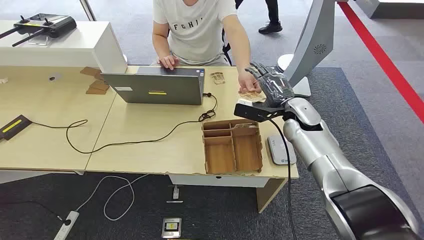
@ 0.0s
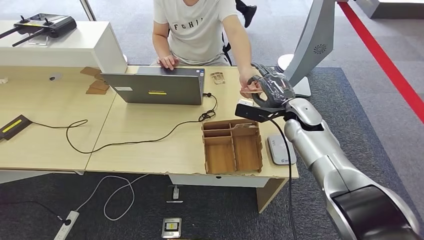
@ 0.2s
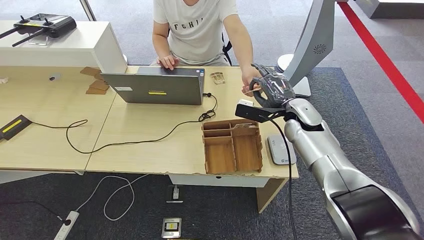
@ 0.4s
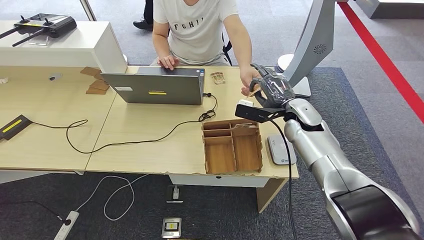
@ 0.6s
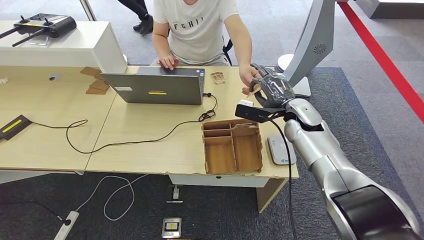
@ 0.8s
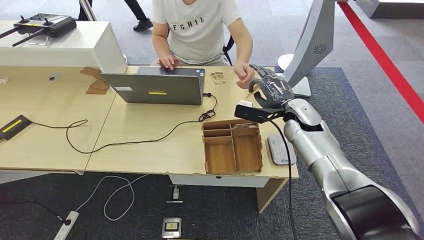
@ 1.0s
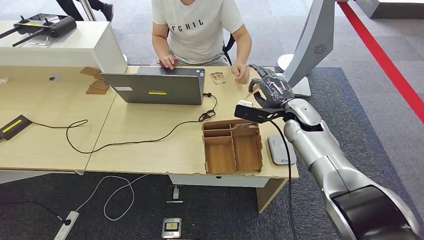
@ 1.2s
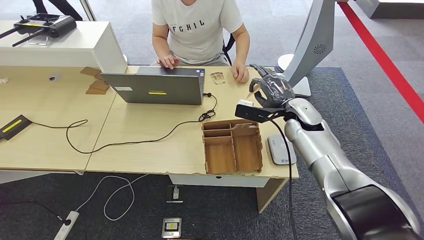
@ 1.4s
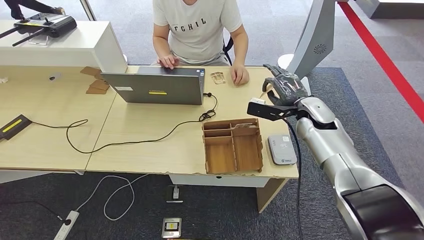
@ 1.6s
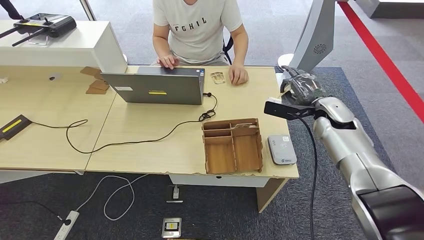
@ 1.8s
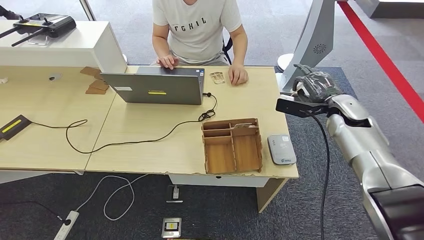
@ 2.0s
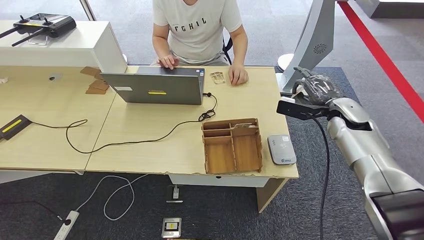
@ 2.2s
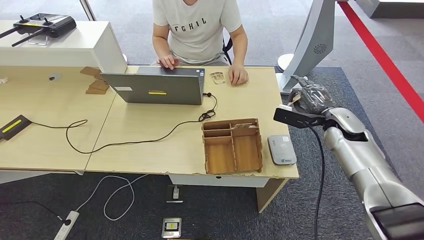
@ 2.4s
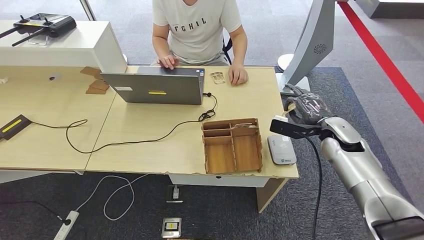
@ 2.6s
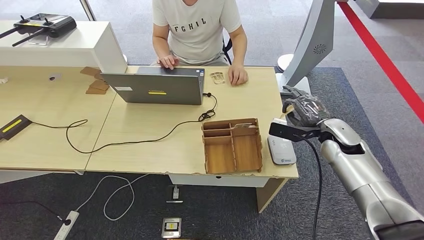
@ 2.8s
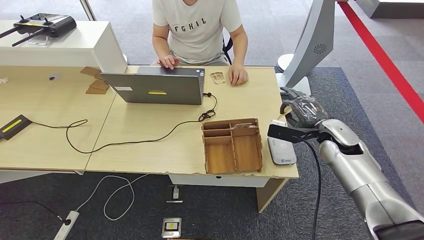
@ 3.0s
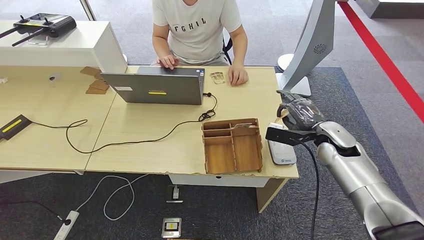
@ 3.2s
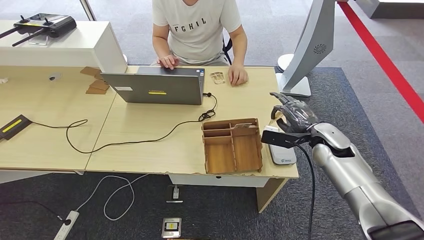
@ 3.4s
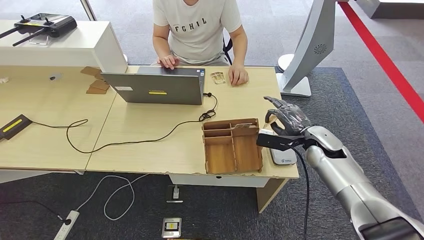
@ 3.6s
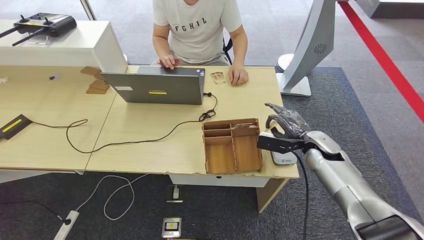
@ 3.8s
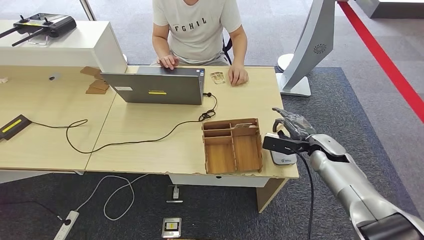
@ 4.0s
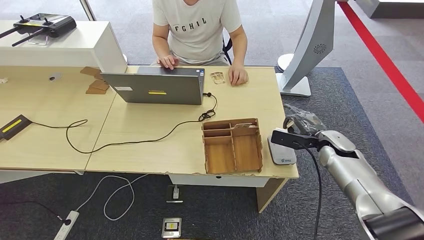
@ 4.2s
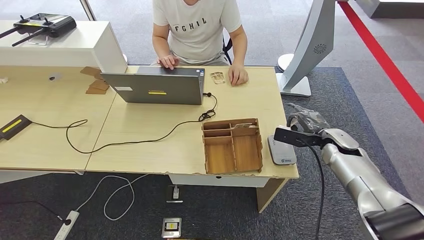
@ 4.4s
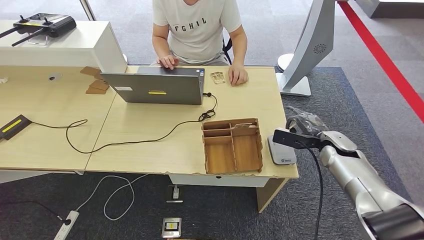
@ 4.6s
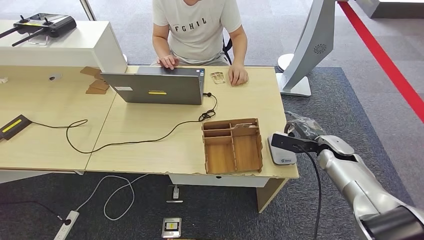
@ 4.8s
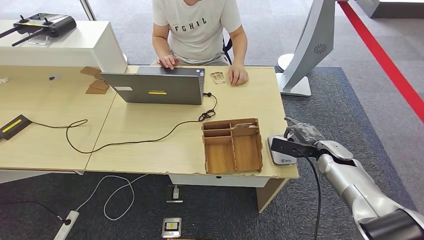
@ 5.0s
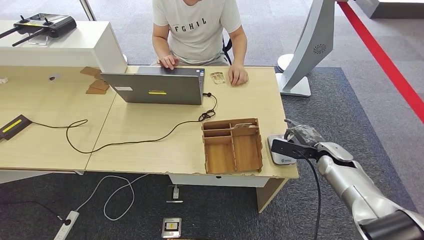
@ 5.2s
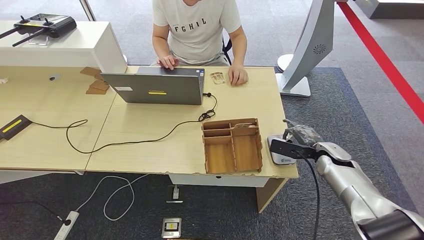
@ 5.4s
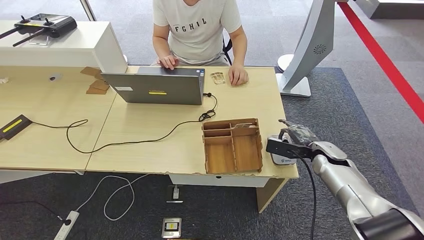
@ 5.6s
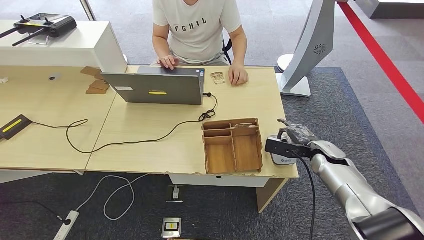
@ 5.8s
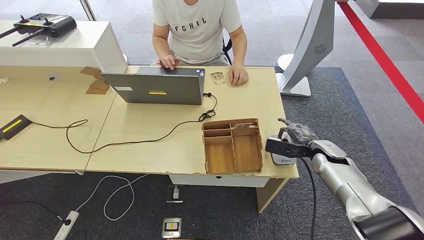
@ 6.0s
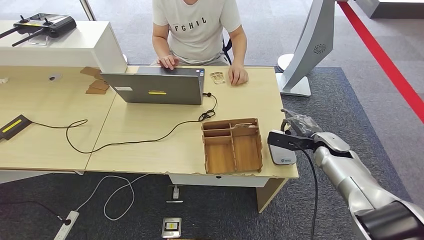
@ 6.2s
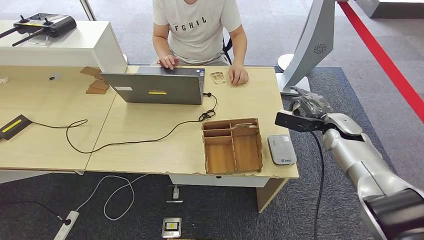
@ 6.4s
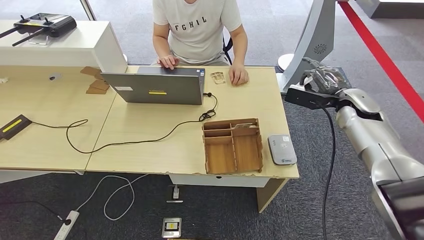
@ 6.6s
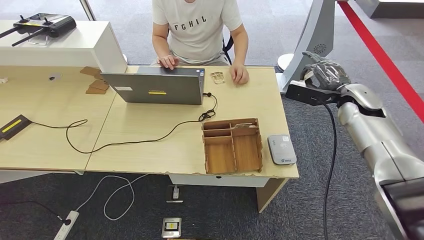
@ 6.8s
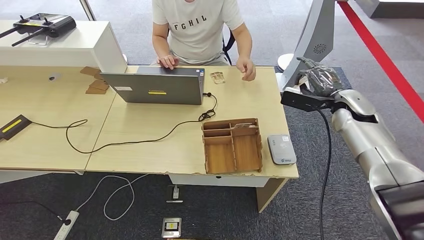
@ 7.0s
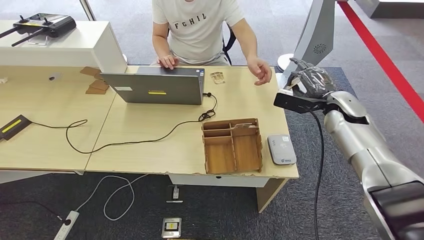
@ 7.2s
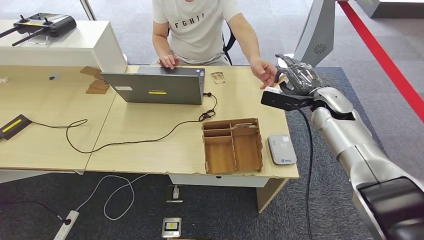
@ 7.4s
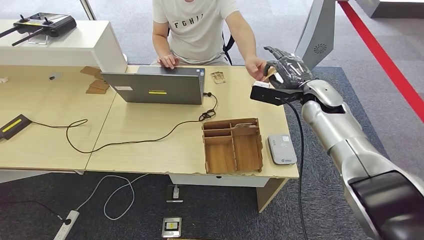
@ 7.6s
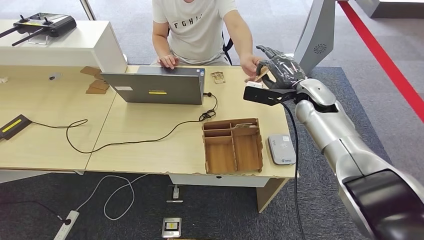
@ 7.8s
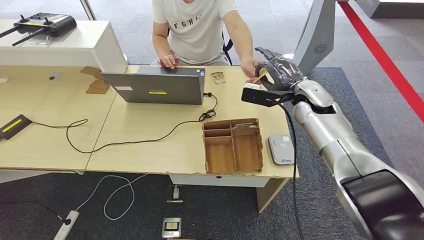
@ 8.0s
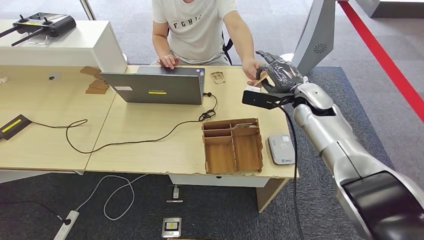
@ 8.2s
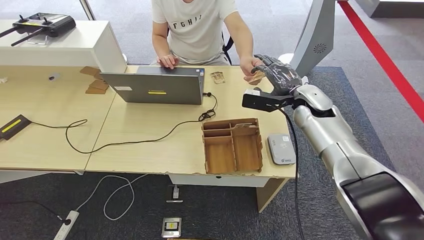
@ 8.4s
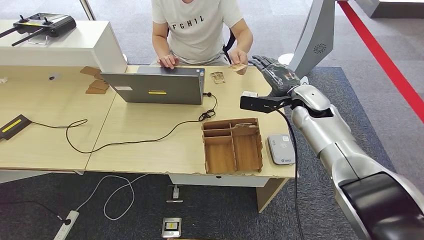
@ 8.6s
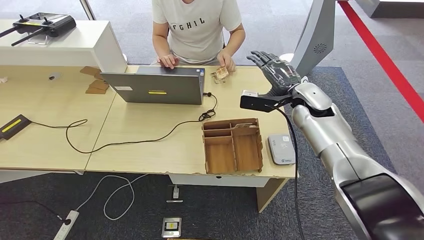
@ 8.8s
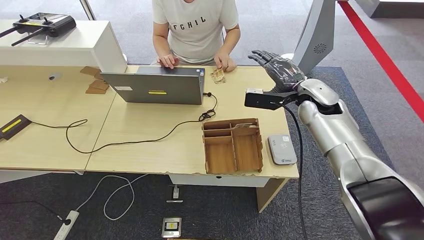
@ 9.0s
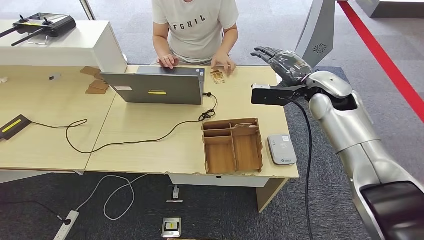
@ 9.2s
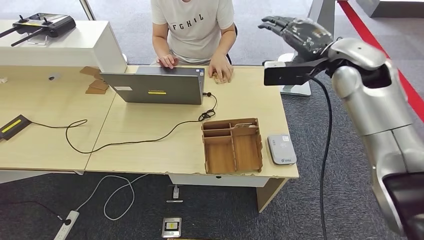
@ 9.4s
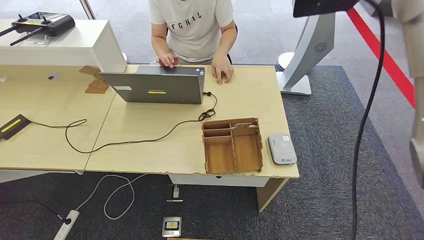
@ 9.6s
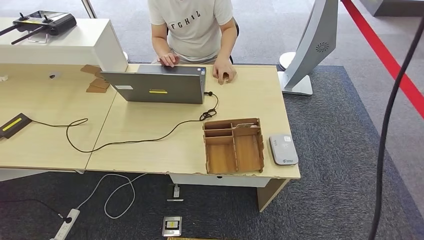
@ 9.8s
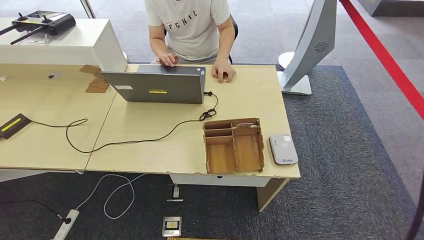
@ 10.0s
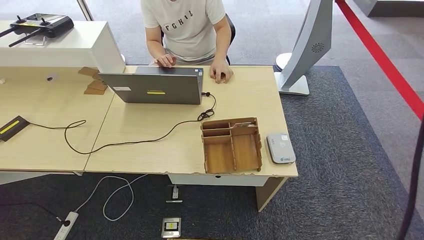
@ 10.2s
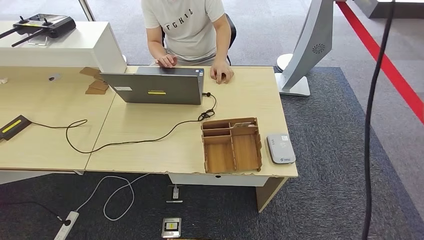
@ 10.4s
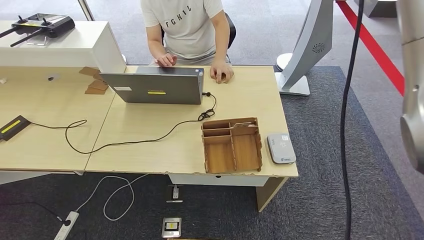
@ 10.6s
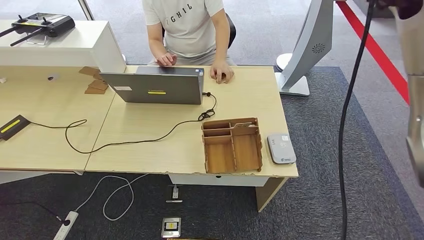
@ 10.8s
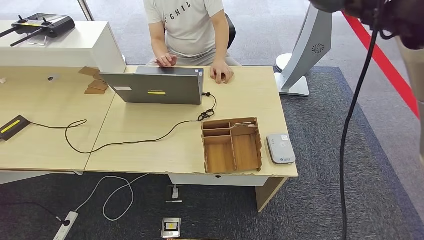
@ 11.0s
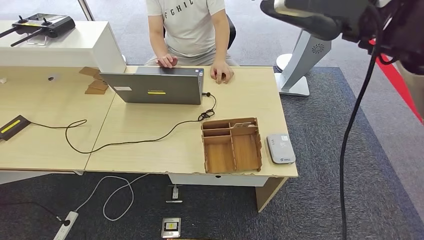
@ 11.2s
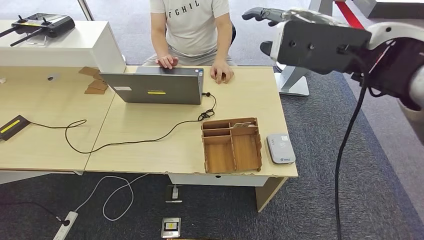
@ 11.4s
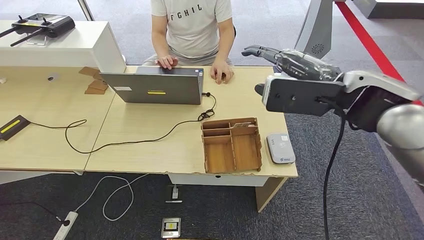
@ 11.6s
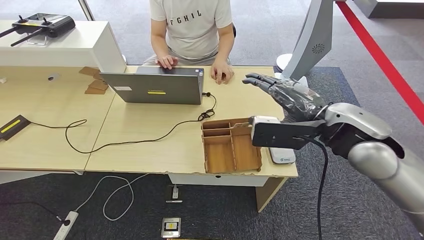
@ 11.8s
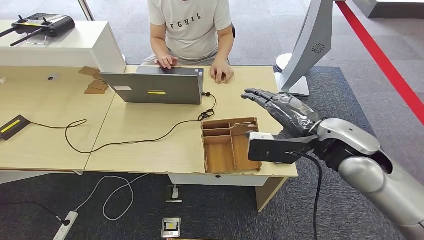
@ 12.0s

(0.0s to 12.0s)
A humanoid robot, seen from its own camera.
Step, 0.0s - 1.6s: Take the ID card from the person's hand.
Step, 1.8s - 6.0s: Place the ID card on the card reader.
Step, 6.2s - 9.0s: Hand the ID card to the person.
1.6s - 3.0s: The right hand is displaced to the right and backward by roughly 10 cm.
3.0s - 4.4s: The right hand changes place by about 5 cm.
4.4s - 6.0s: There are only small adjustments of the hands.
6.0s - 7.6s: The right hand shifts approximately 20 cm upward, forward and to the left.
7.6s - 9.0s: The hands make only small movements.
9.0s - 10.4s: The right hand shifts some 40 cm upward.
10.4s - 12.0s: The right hand travels downward and backward by roughly 35 cm.

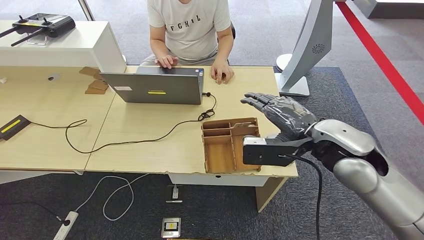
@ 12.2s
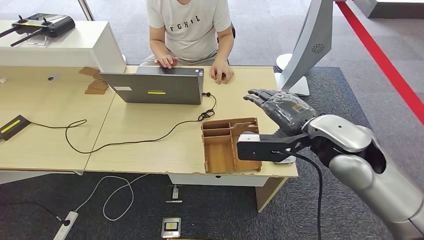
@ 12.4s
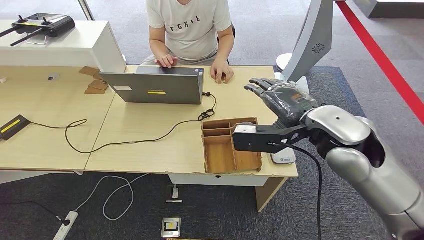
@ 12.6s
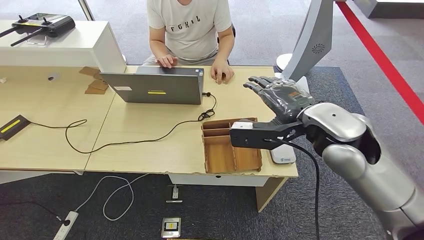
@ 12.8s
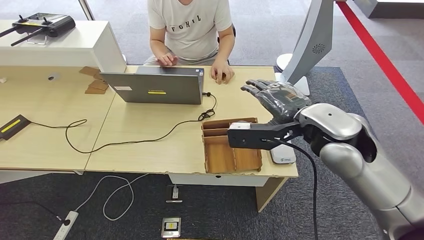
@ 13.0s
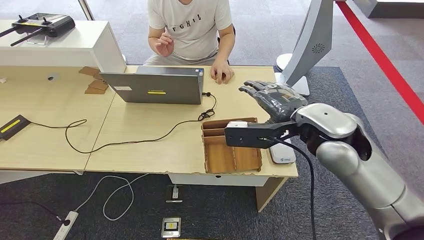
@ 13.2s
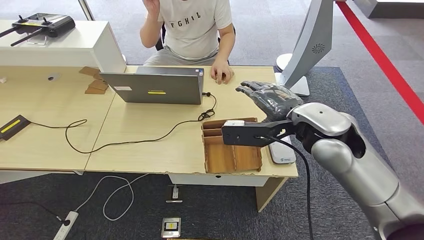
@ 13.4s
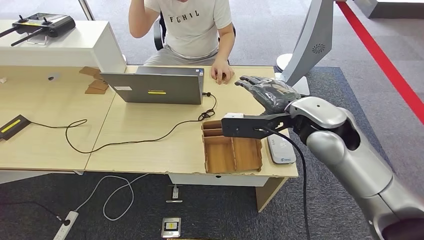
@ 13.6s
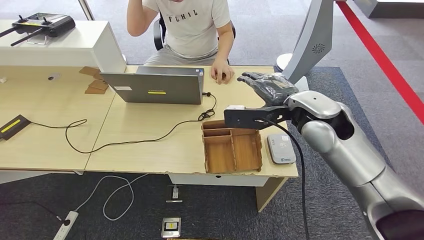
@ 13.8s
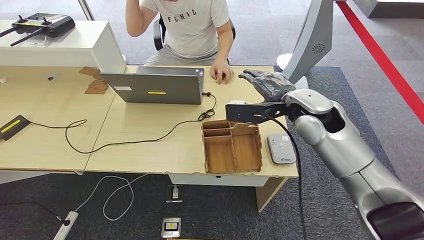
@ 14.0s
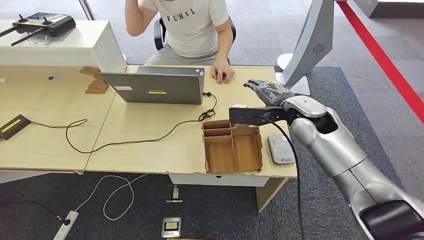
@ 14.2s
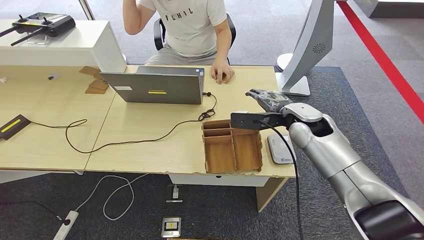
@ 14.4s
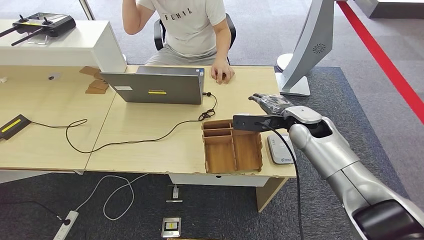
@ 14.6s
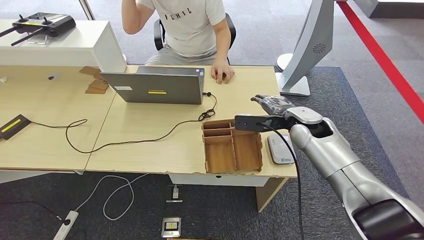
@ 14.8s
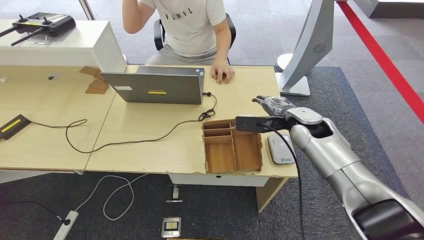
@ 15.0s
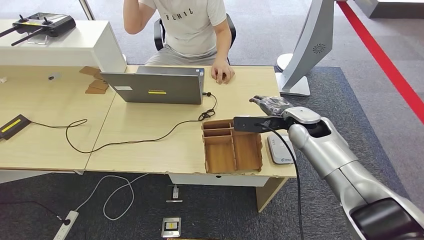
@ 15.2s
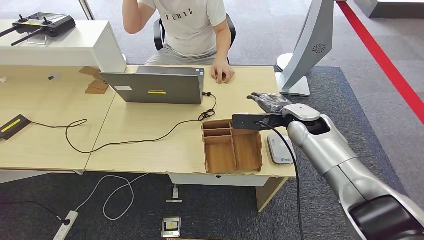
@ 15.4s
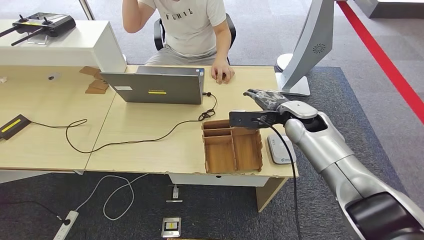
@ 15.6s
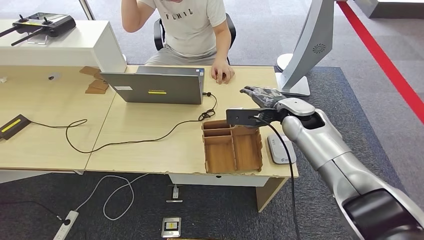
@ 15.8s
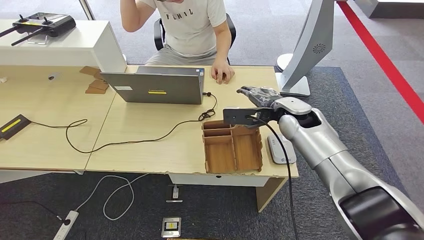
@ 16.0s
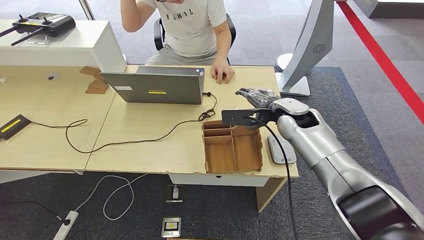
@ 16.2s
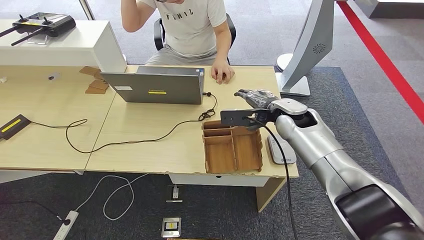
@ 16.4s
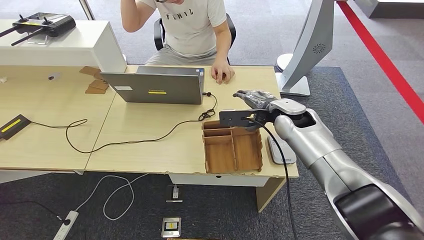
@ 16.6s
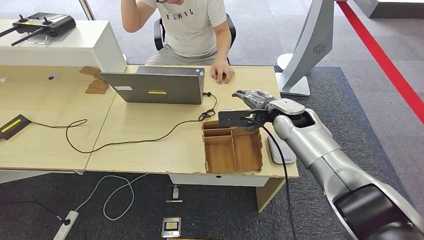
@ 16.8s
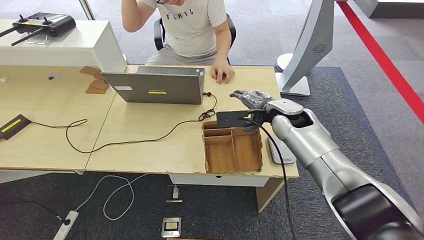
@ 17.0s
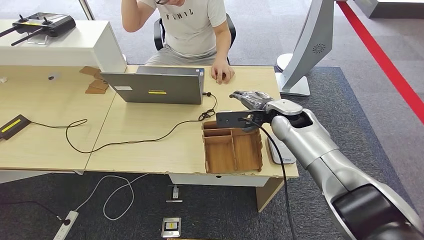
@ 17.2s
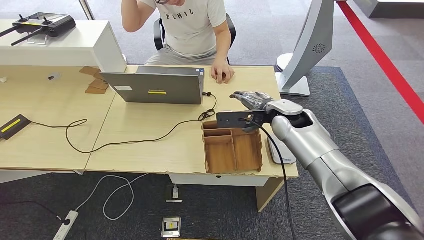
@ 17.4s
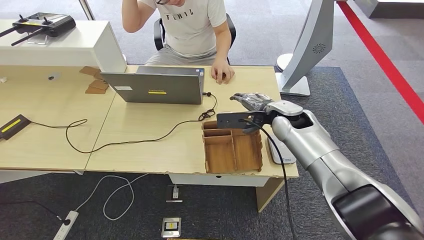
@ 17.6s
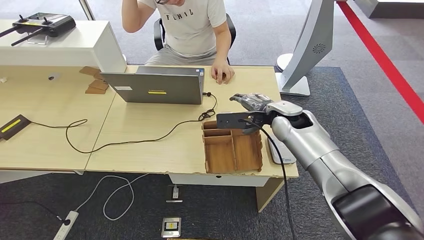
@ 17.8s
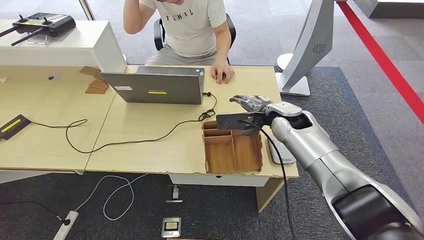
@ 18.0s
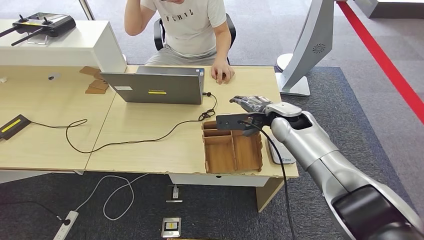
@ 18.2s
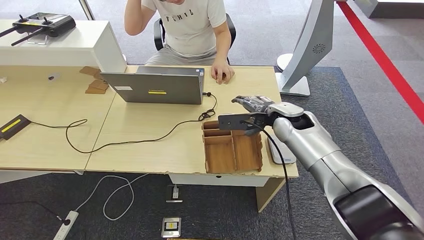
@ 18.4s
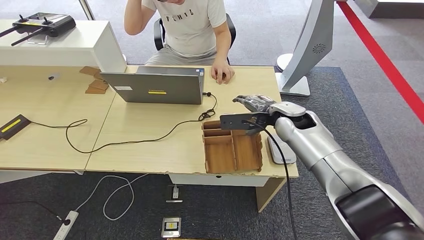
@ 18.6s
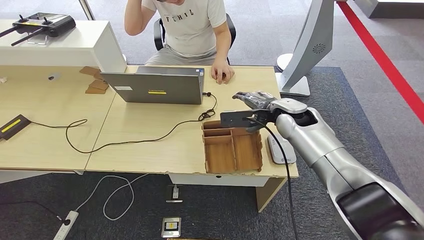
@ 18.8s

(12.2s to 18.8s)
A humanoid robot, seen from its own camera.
Step, 12.2s - 14.4s: Pick up the room key from the key card box.
12.2s - 13.8s: The right hand is displaced forward by roughly 5 cm.
13.8s - 15.4s: The right hand is displaced downward and forward by roughly 10 cm.
15.4s - 18.8s: There are only small adjustments of the hands.
